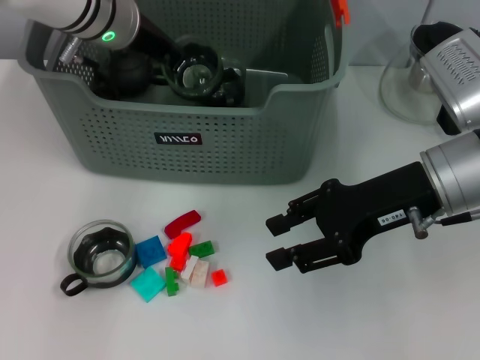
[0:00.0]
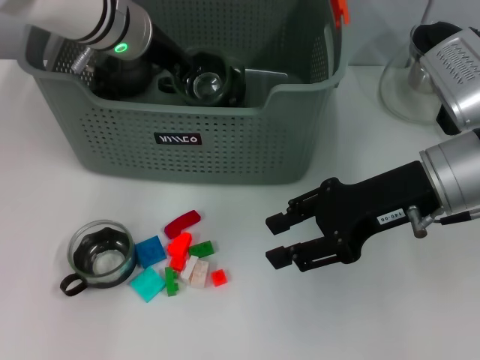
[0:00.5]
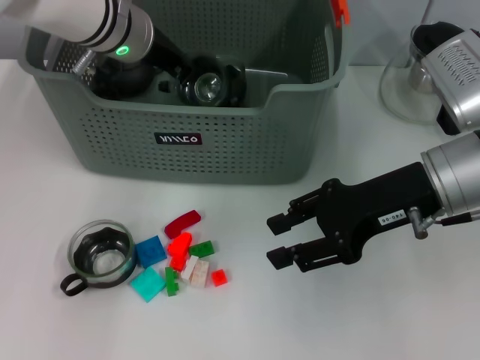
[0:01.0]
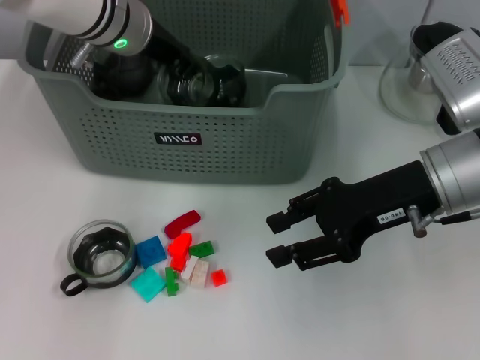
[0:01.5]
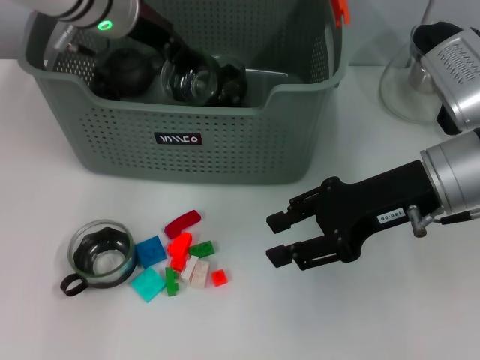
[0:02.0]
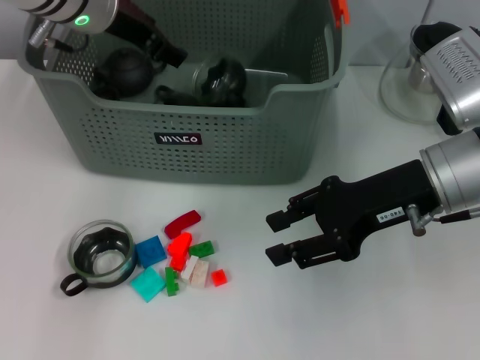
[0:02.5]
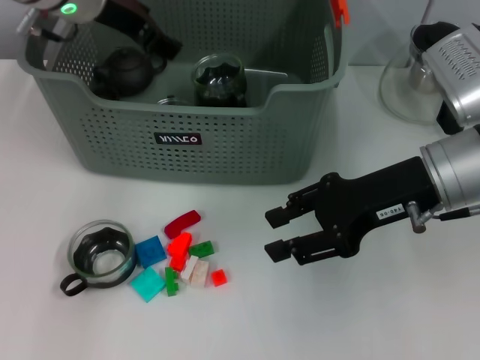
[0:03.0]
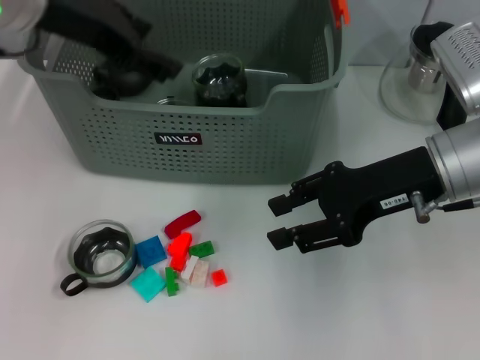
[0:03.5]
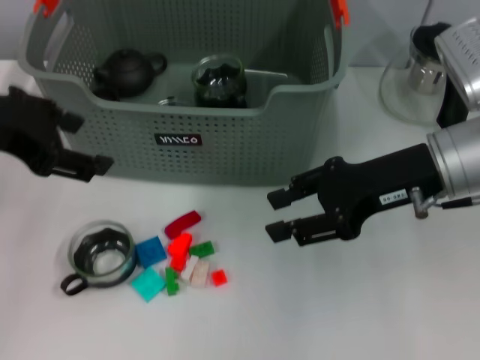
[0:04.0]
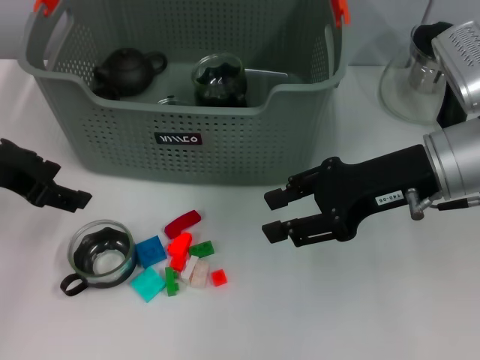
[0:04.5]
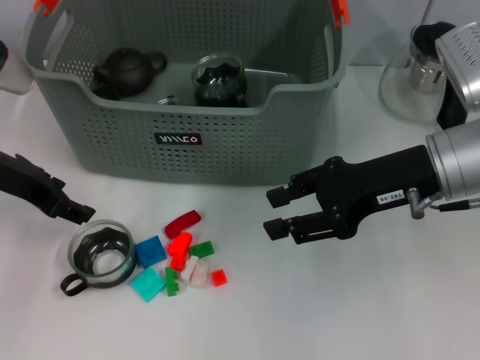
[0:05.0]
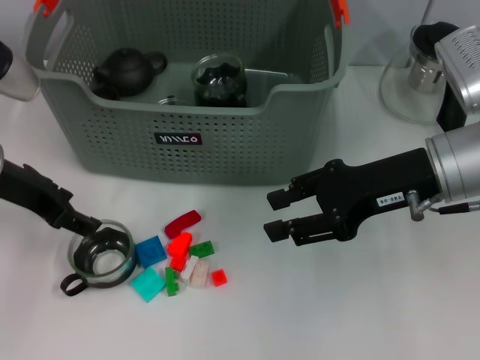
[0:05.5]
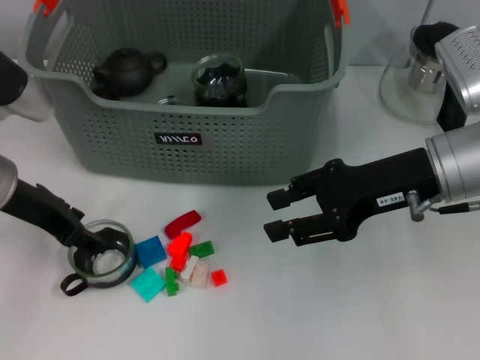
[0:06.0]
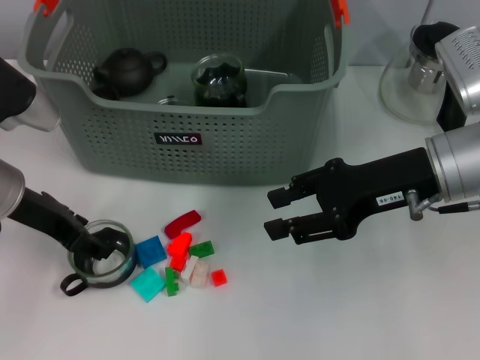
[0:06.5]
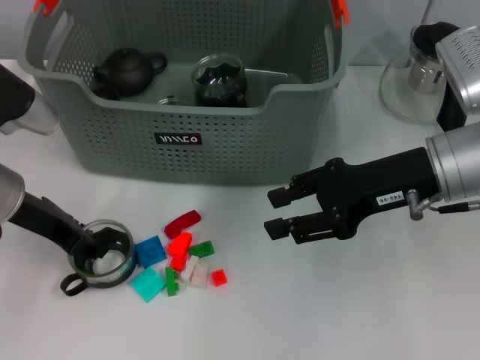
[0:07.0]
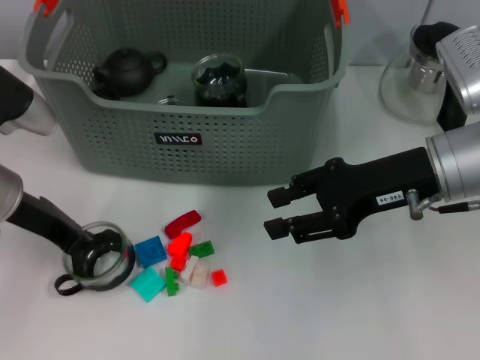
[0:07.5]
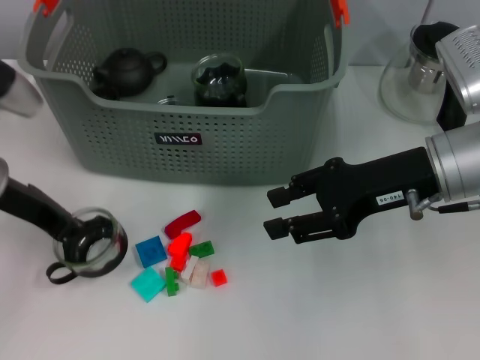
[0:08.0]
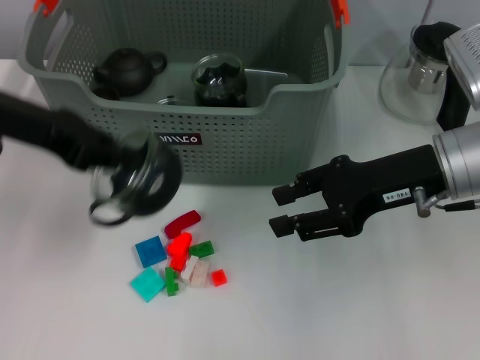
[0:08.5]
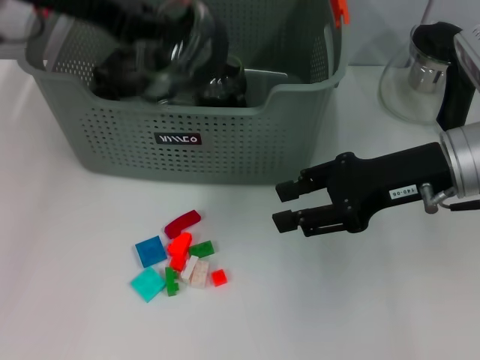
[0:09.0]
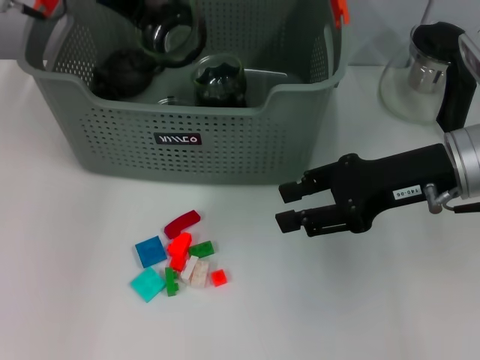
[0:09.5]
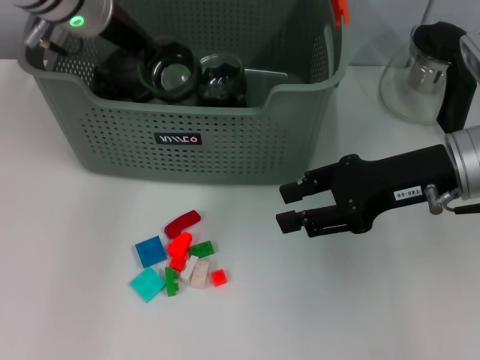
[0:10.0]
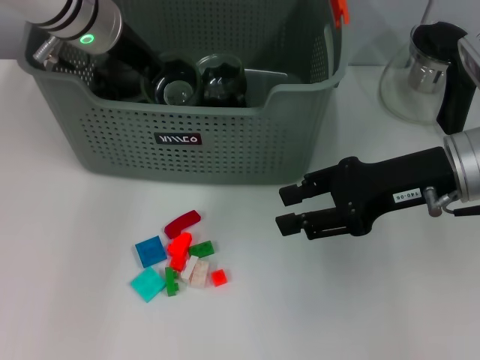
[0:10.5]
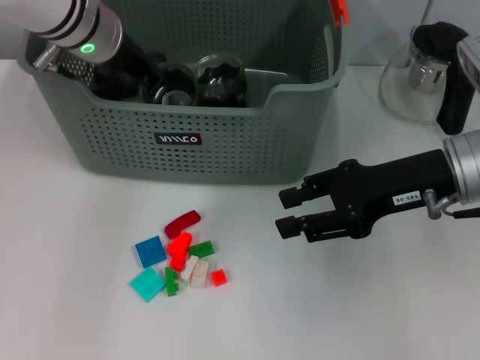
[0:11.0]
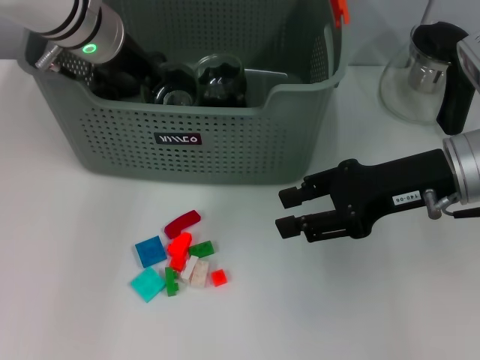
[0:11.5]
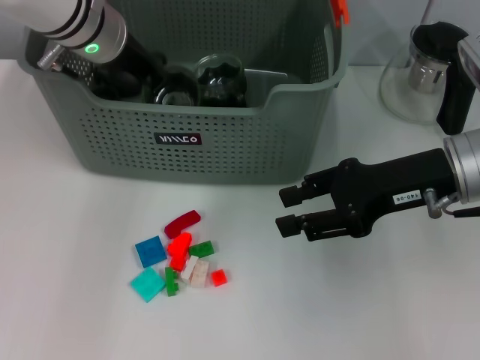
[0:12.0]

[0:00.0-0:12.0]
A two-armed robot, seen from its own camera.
Task of the whole recording: pick up the teacup on the table and place it into the storage bin, pick up the block on the table and place it into the storage bin.
Step, 0:00.0 to 0:02.5: Place the cup in the storage box with left gripper.
Step, 0:03.0 to 0:07.5: Grasp the cup with left gripper.
0:00.0 to 0:02.0: The left gripper opens.
0:02.0 to 0:04.0: The left gripper goes about 20 cm backward and to the left.
0:04.0 to 0:06.0: The left gripper shifts about 10 cm downward.
0:06.0 to 0:08.0: The left gripper closes its fingers.
0:08.0 to 0:10.0: The left gripper shifts roughly 15 cm forward, to the right and upward.
0:10.0 to 0:12.0: The grippers move only a little.

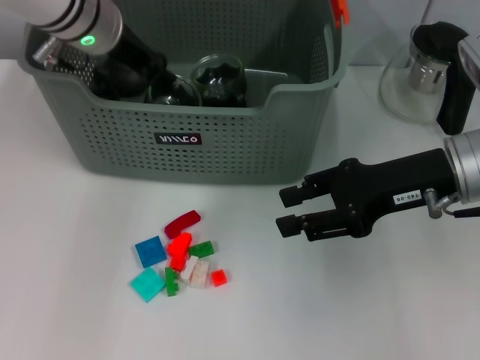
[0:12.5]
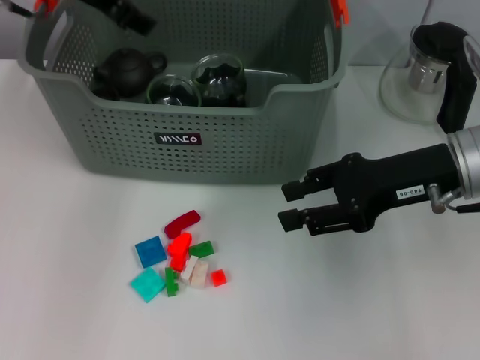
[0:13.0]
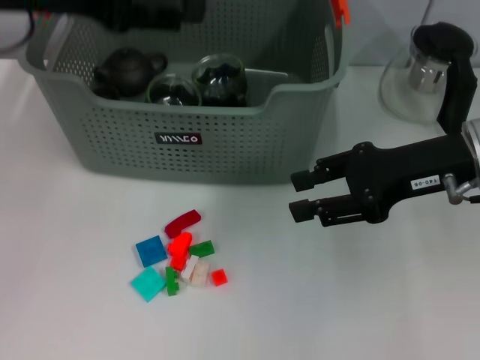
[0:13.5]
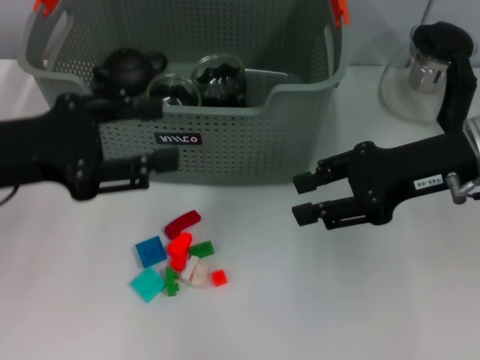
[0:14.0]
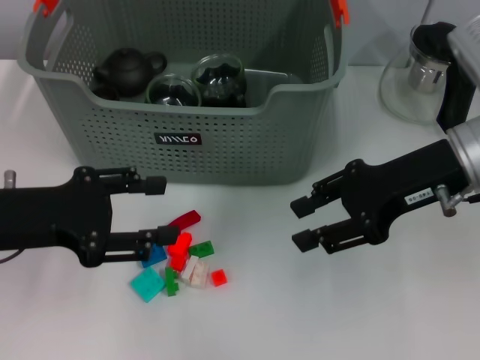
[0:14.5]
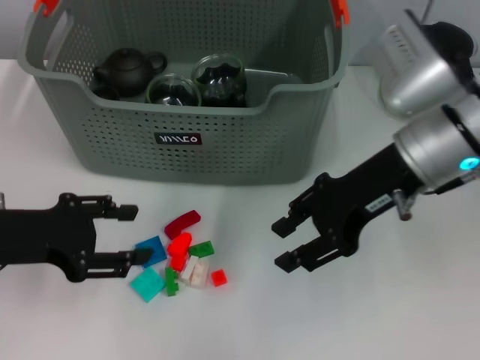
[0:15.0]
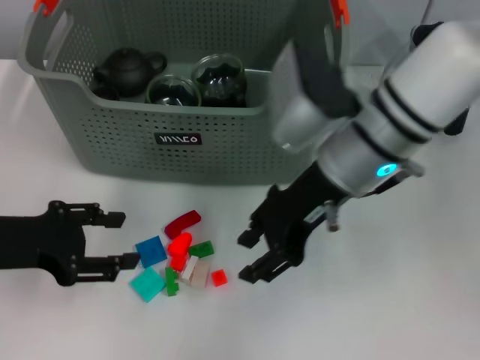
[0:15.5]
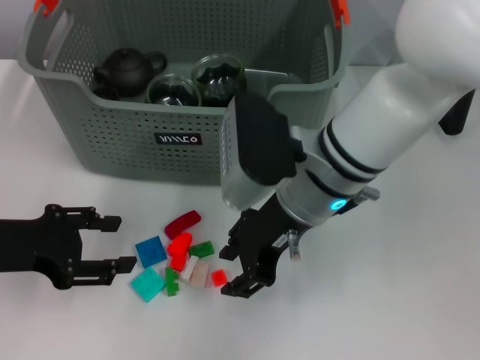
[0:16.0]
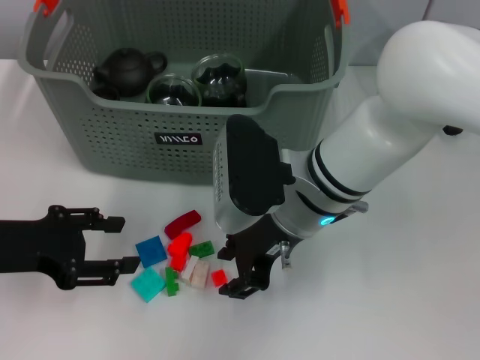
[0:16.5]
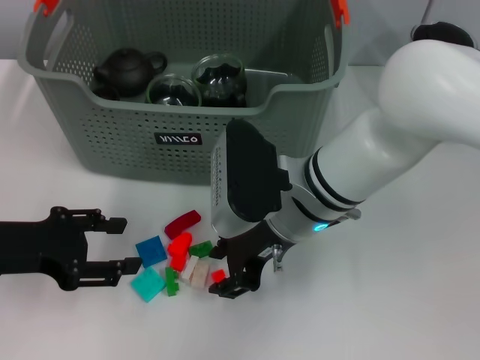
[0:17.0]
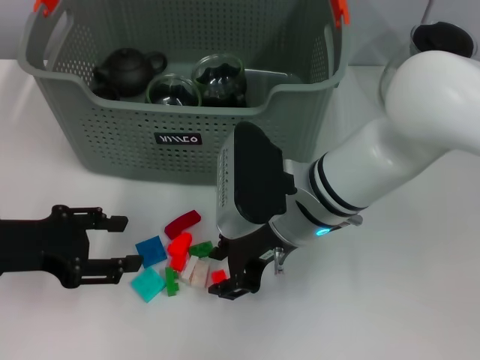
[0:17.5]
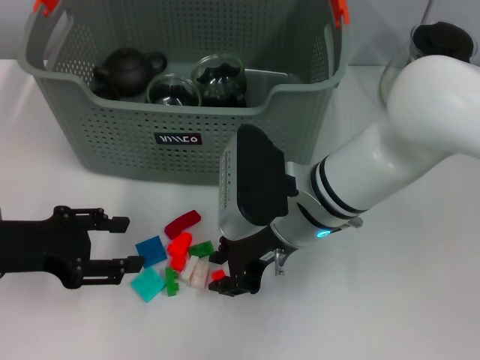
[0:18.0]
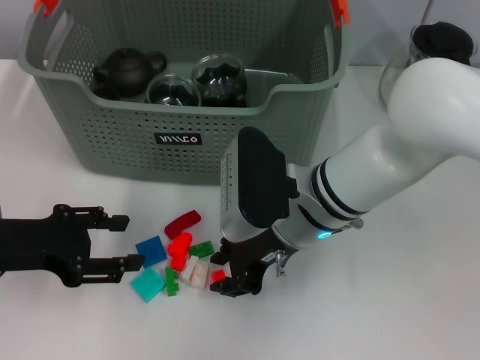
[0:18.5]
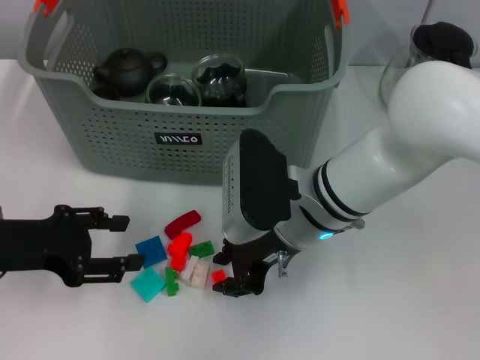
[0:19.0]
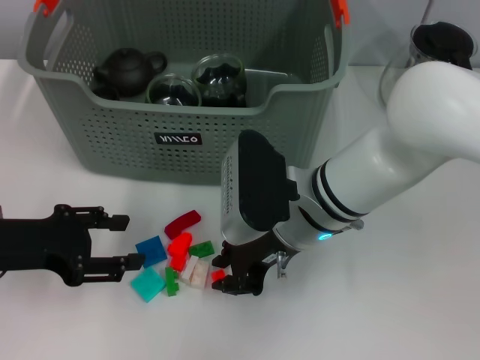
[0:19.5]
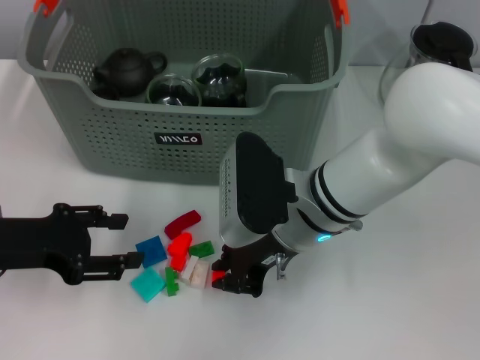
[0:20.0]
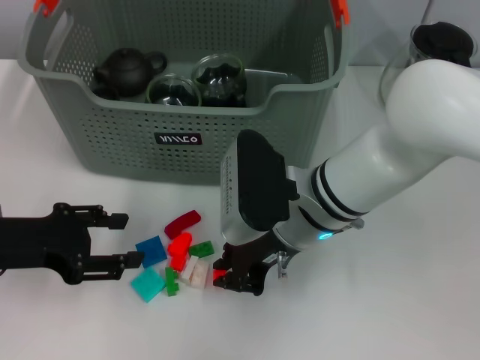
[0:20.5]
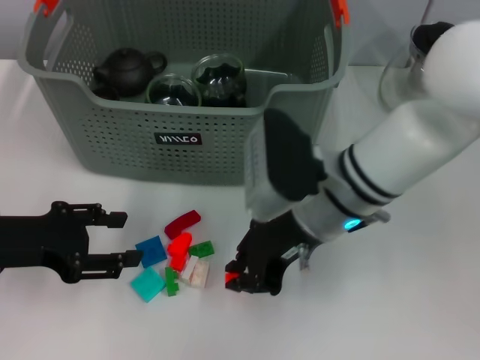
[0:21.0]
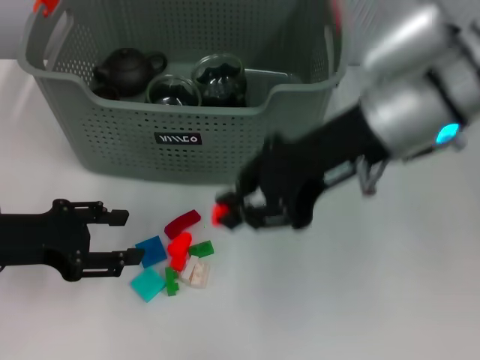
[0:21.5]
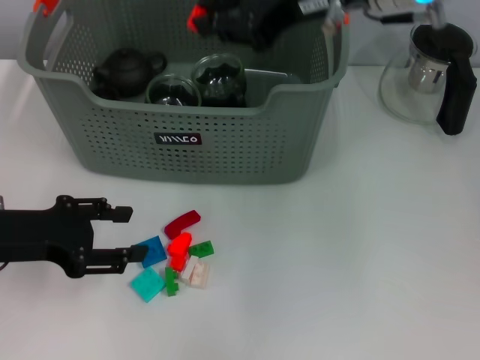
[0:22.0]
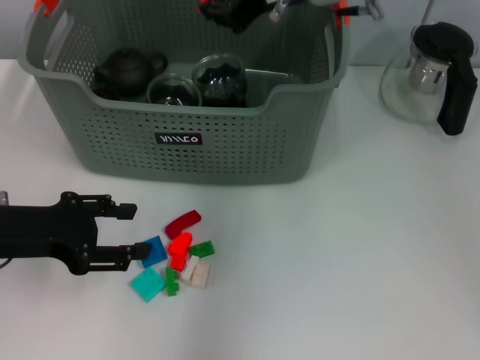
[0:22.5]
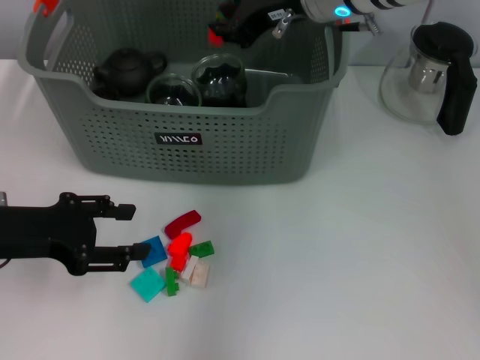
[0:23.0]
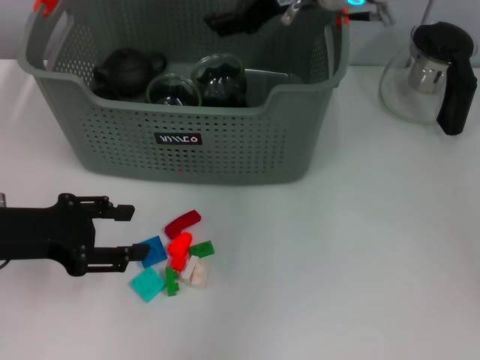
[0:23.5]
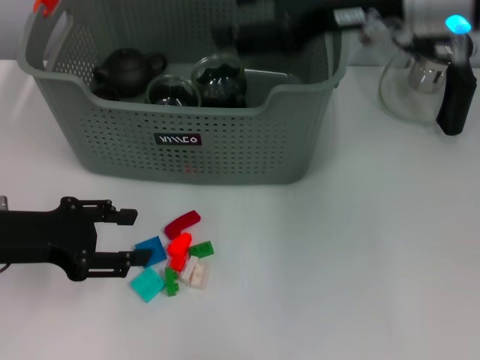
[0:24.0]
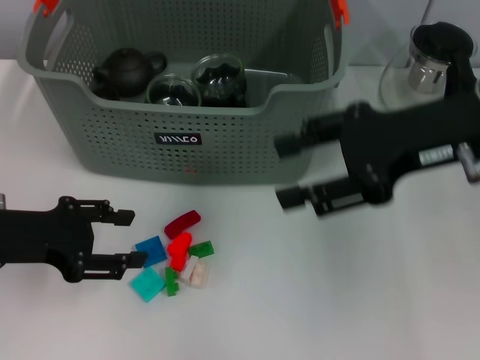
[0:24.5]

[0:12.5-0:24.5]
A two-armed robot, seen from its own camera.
Task of the whole recording: pick up the teacup on the table and place it into the storage bin, pick up the block on the table and place it into the storage bin.
Step, 0:13.5 to 0:20.0: Grasp the orange block with right gripper.
Step, 0:20.5 to 0:23.0: Place the orange block in the storage box with right gripper.
0:12.5 to 0:14.5: The left gripper moves backward and to the left, some 20 cm, and opens.
0:14.5 to 0:16.5: The right gripper travels to the left by roughly 15 cm.
0:16.5 to 0:18.5: The grippers make only small movements.
0:18.5 to 0:20.5: The two grippers keep their place.
0:20.5 to 0:22.5: The right gripper goes roughly 20 cm upward and forward.
0:22.5 to 0:24.5: The right gripper is displaced to the right and backward by some 20 cm, and opens its fingers.

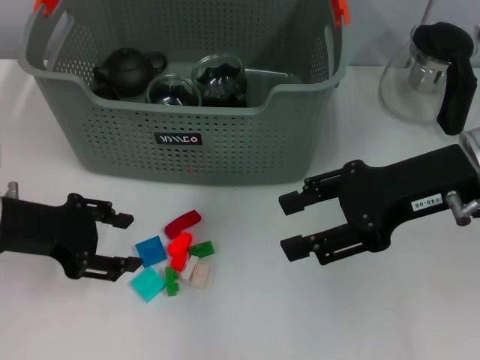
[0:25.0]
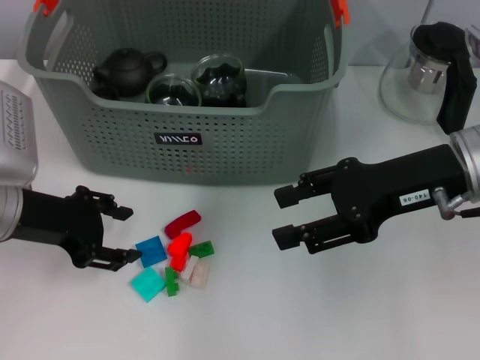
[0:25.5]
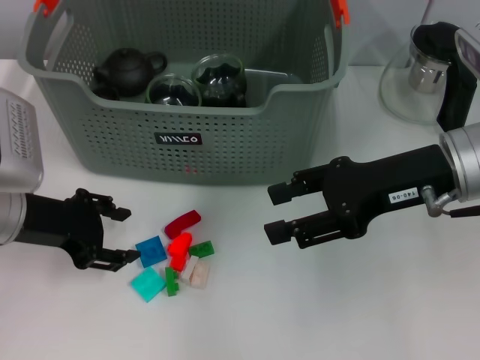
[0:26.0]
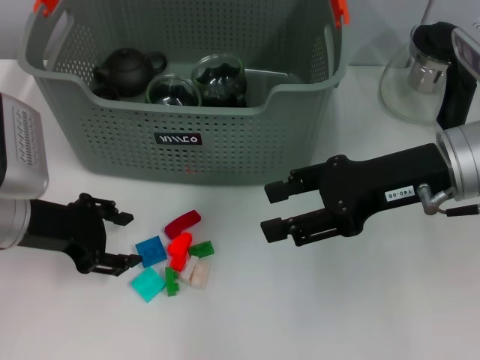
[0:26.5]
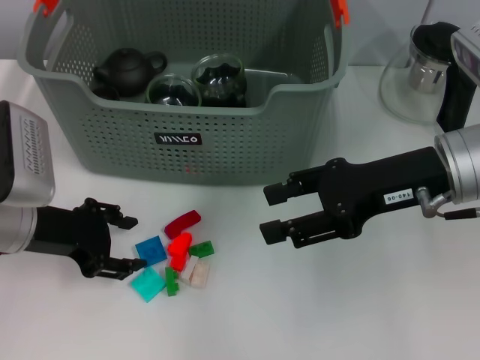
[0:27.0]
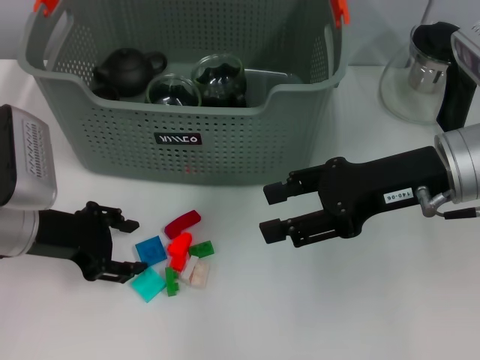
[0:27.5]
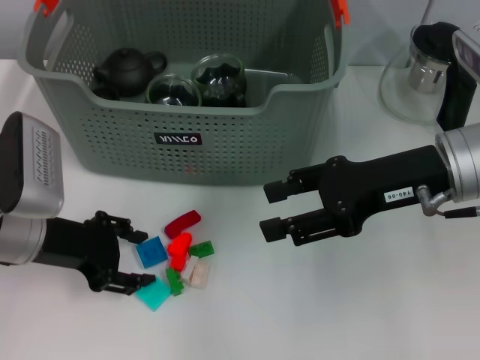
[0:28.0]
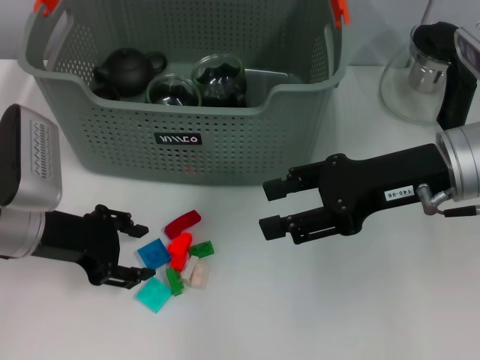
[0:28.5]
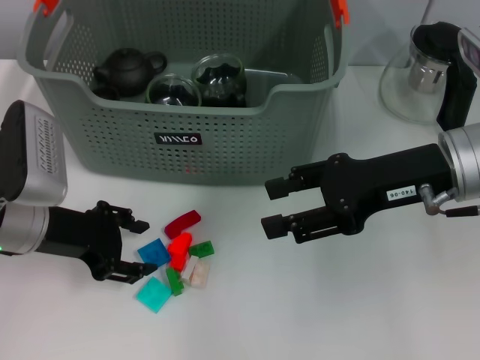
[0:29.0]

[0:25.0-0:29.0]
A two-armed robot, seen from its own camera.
Task of the whole recording: pick up the teacup on the table and place it into the storage bin, pick up the block on the table and place it into the storage bin.
0:25.0 to 0:27.0: The grippers stay close to where they were, moving slightly.
0:27.0 to 0:29.0: Neither gripper changes place.
